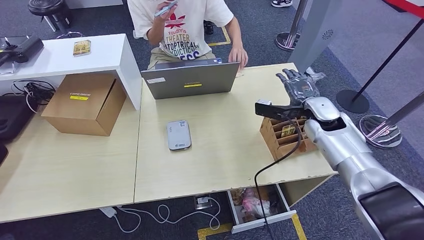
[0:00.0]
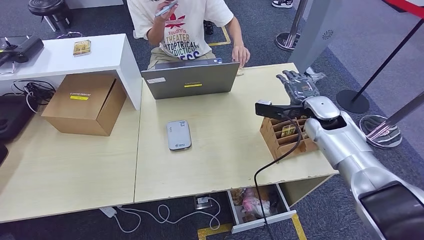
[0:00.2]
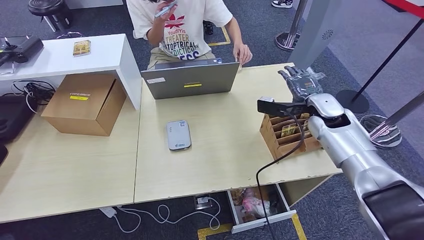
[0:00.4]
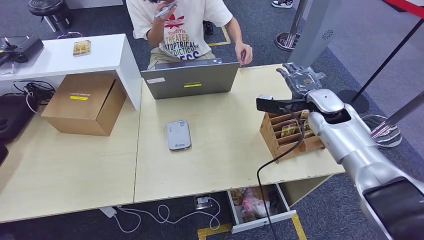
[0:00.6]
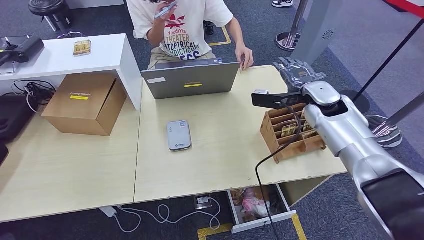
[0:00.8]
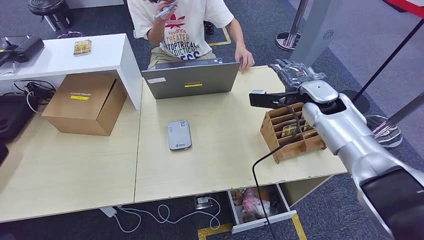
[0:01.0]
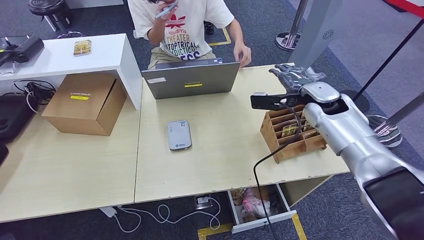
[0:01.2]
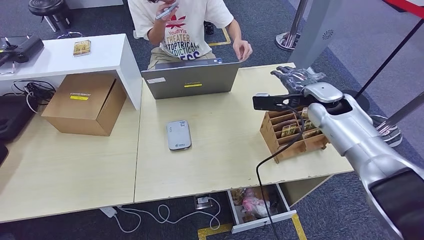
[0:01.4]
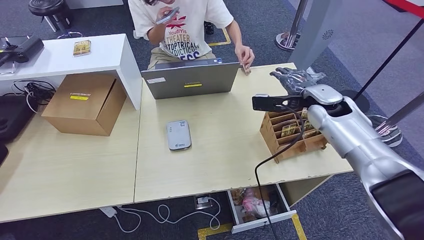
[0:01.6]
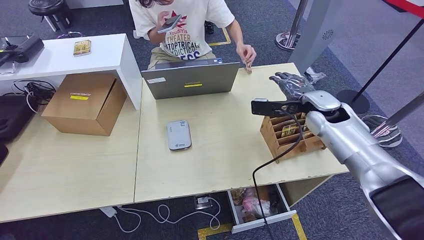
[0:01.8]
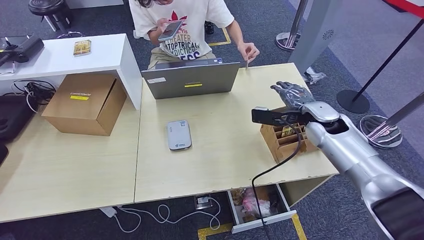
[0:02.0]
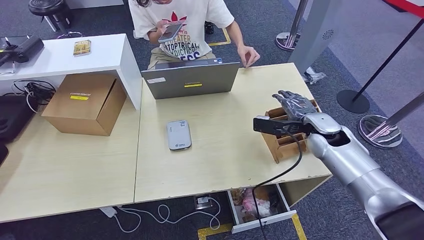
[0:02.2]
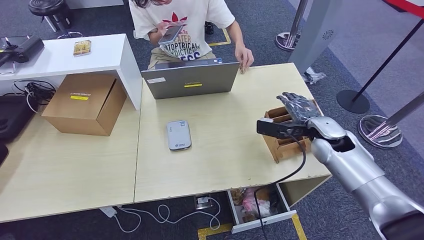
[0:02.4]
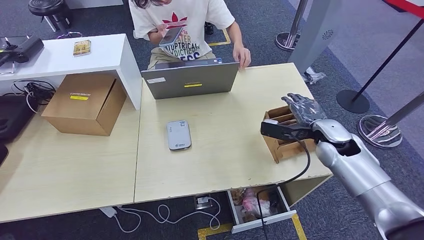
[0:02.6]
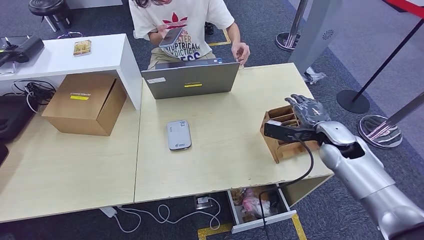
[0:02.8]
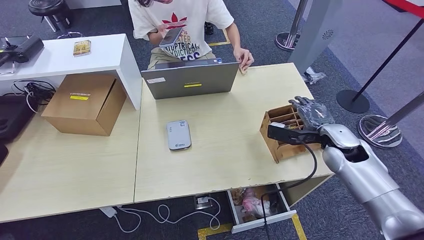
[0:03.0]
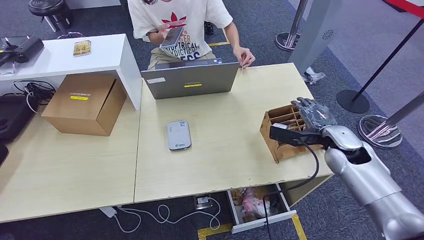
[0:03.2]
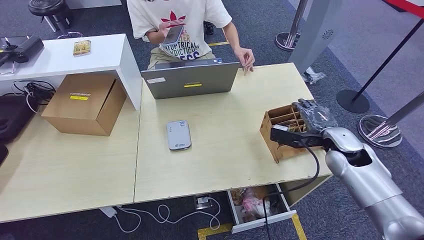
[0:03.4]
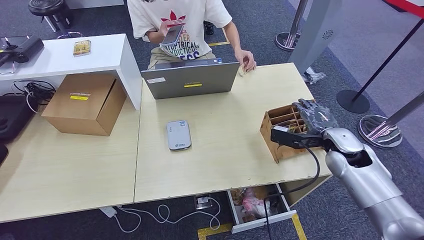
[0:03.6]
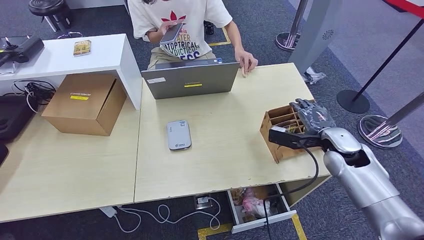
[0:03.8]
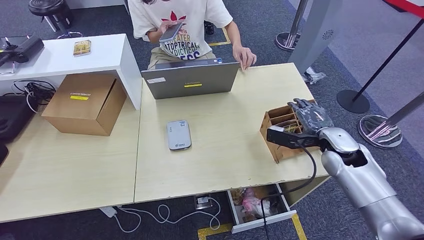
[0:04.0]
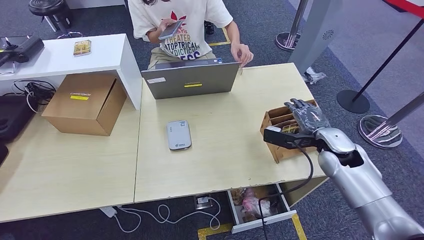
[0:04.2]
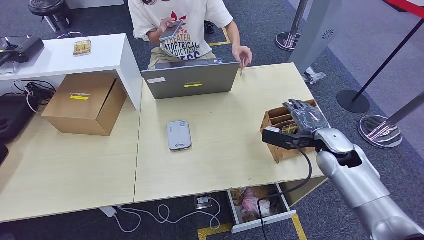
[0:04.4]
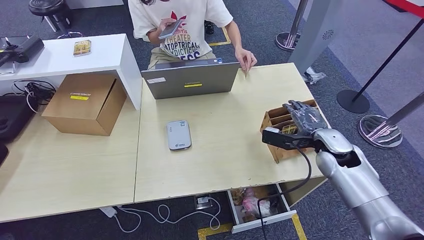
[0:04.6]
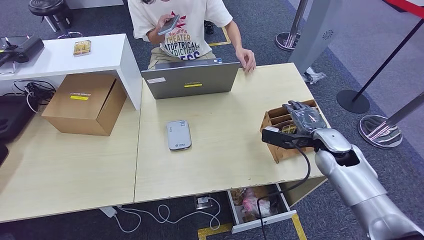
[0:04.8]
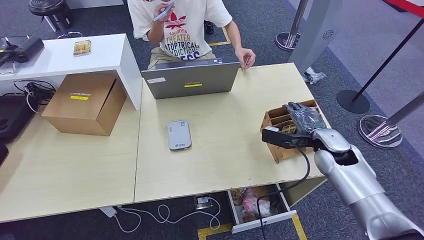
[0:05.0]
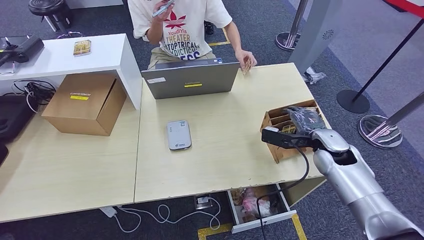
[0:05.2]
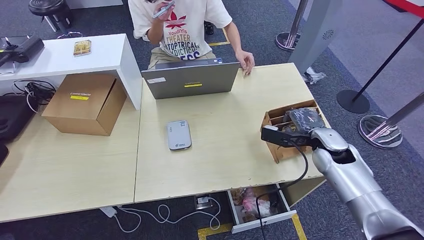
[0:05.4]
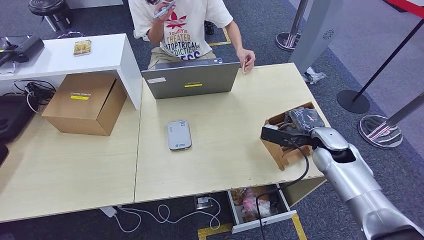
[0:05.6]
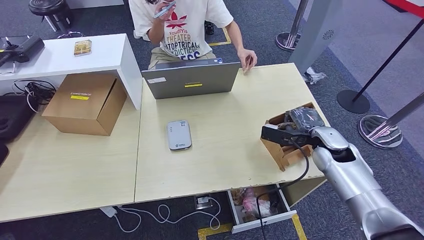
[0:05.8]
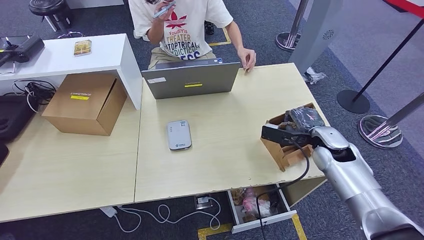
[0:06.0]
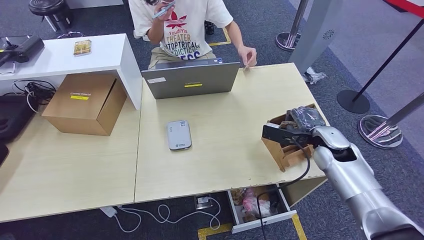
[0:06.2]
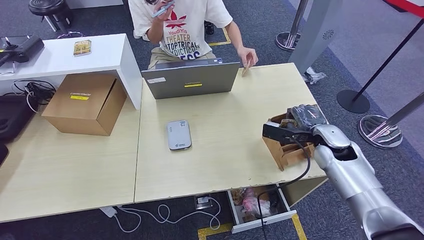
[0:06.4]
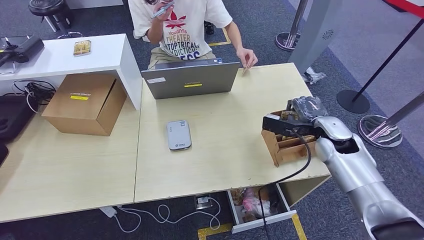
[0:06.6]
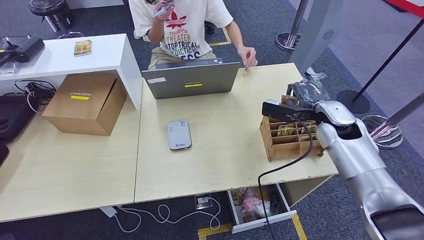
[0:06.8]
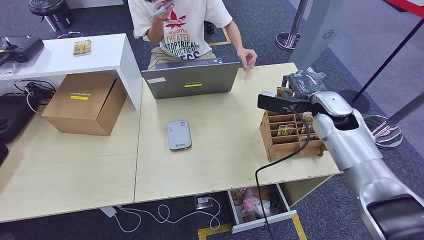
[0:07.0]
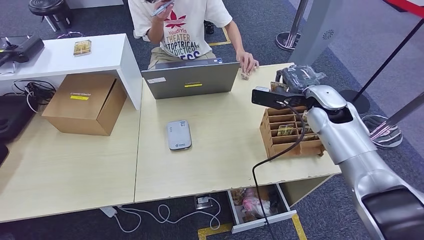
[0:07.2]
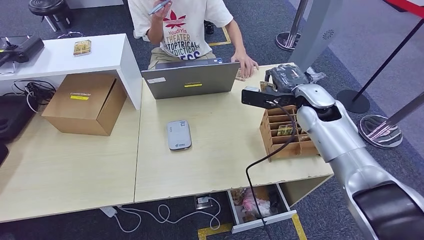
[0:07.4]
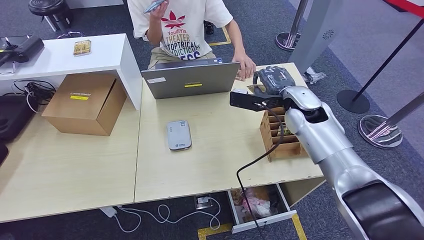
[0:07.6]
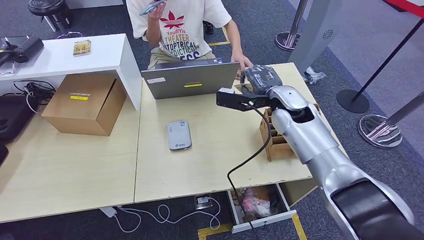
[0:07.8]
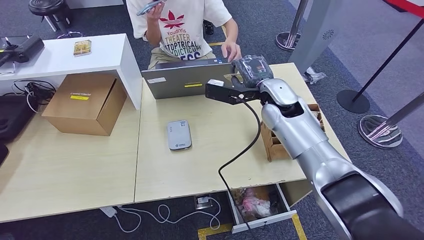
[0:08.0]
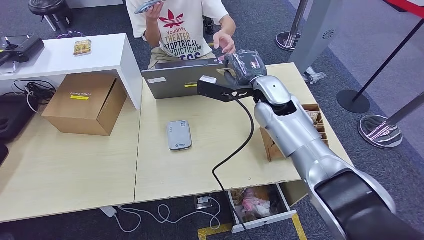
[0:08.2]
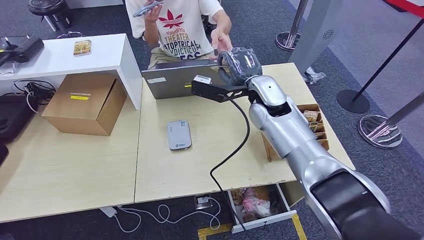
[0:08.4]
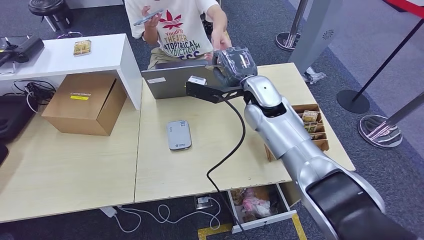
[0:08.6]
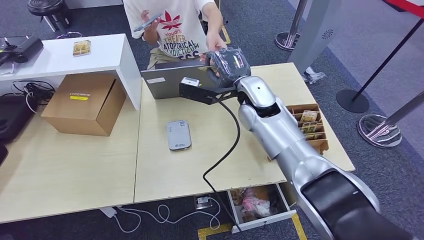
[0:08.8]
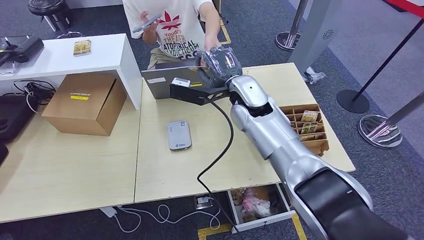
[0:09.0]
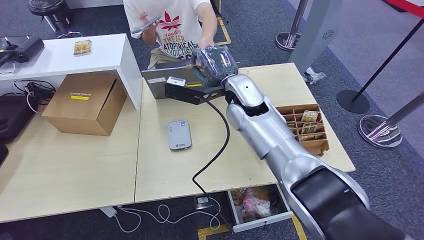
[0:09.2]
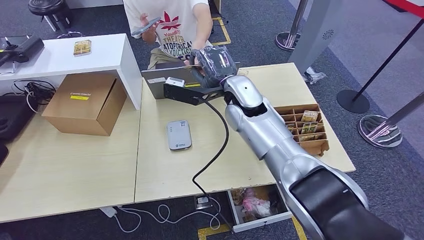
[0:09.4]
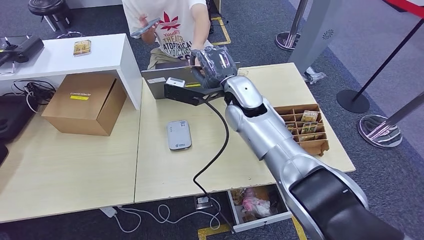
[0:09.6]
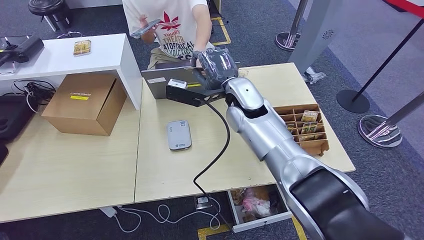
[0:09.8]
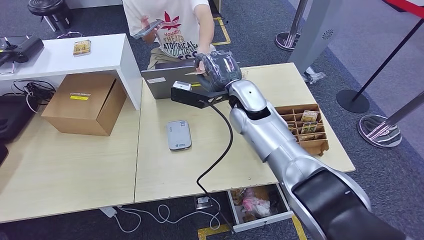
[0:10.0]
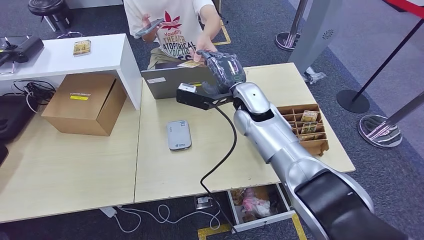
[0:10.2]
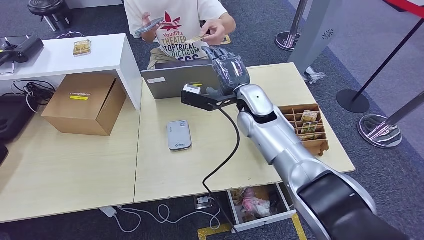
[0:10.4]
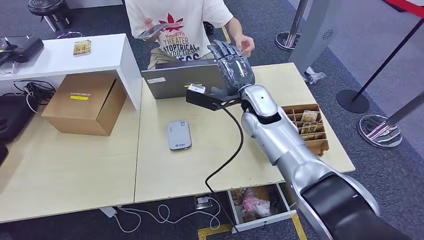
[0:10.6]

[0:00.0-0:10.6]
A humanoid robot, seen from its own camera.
Step, 0:00.0 to 0:07.2: Pick up the room key from the key card box.
Step, 0:07.4 to 0:10.4: Hand the room key to the person.
0:00.0 to 0:01.6: The right hand changes place by approximately 5 cm.
0:01.6 to 0:03.0: The right hand is displaced backward and downward by roughly 10 cm.
0:03.0 to 0:06.0: The hands stay close to where they were, moving slightly.
0:06.0 to 0:07.6: The right hand moves upward, to the left and forward, about 15 cm.
0:07.6 to 0:09.0: The right hand travels to the left by some 15 cm.
0:09.0 to 0:10.6: The hands make only small movements.

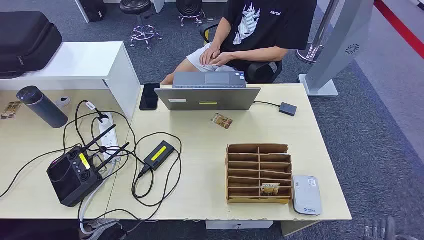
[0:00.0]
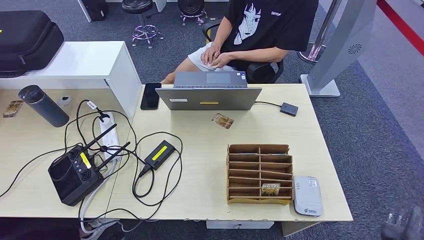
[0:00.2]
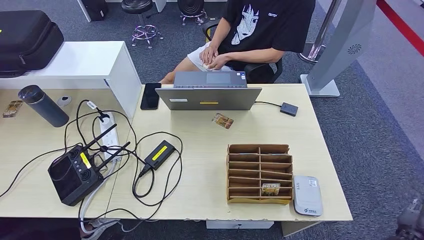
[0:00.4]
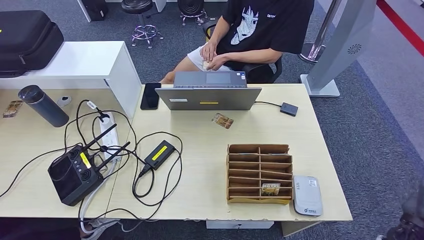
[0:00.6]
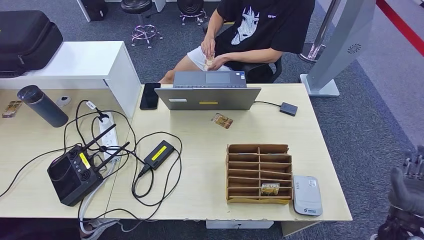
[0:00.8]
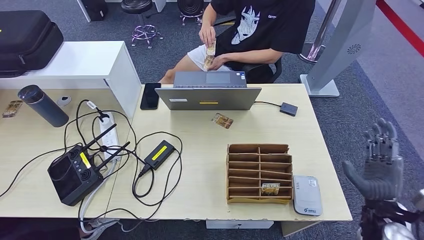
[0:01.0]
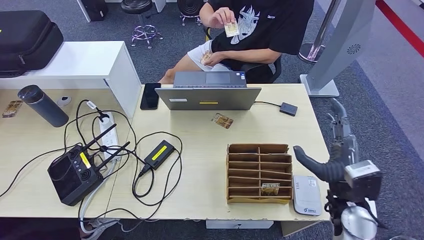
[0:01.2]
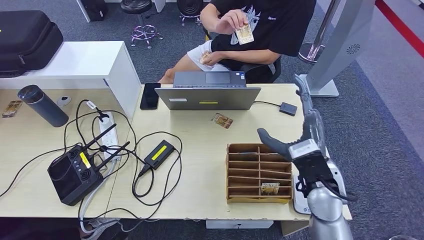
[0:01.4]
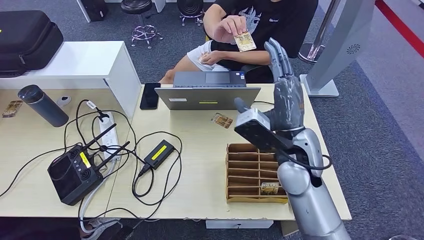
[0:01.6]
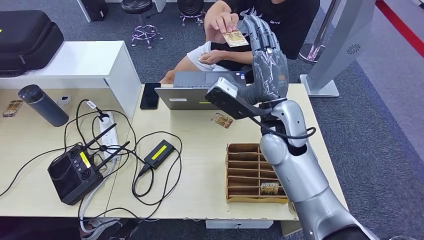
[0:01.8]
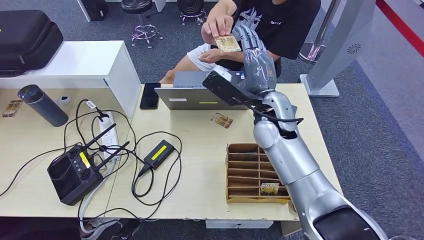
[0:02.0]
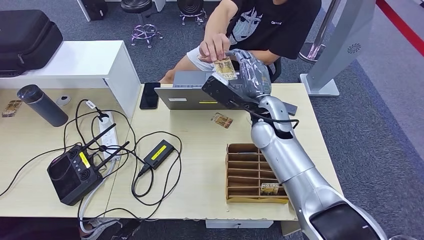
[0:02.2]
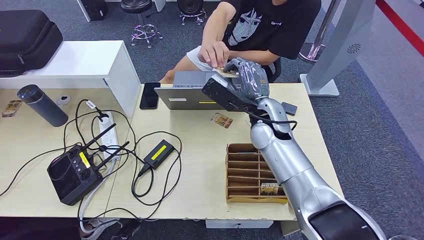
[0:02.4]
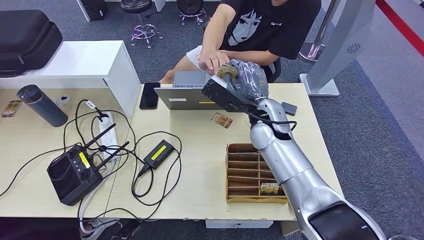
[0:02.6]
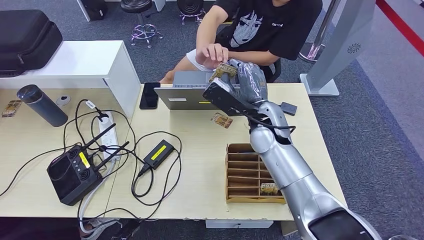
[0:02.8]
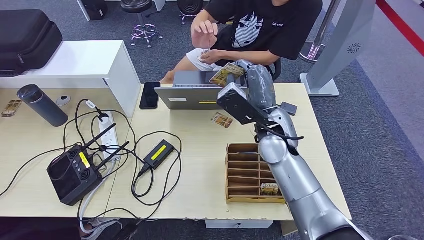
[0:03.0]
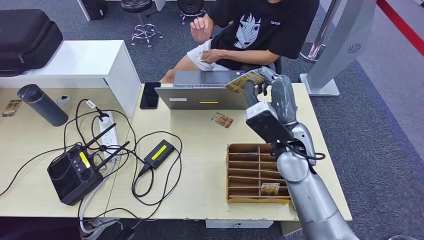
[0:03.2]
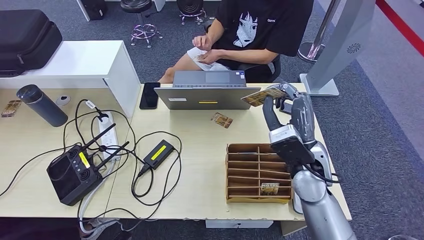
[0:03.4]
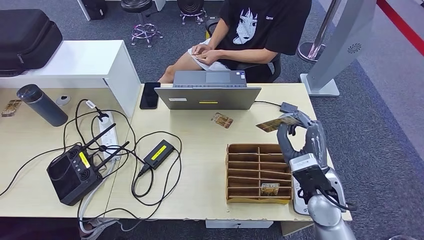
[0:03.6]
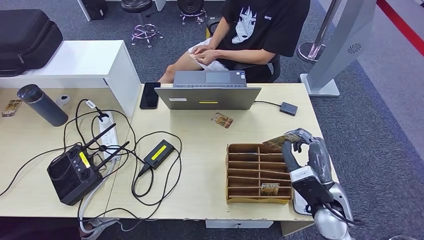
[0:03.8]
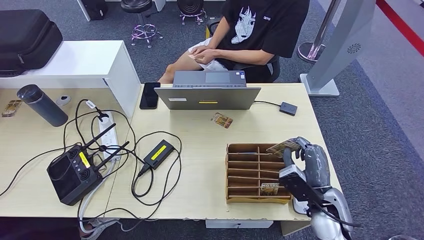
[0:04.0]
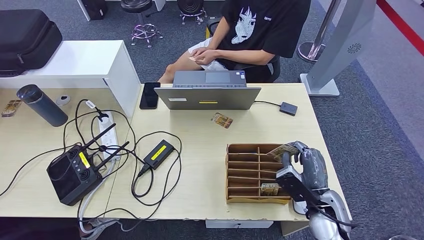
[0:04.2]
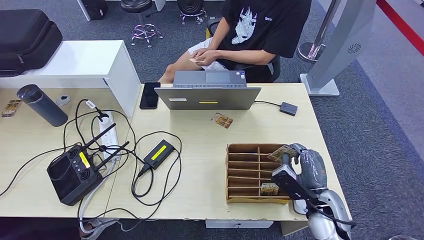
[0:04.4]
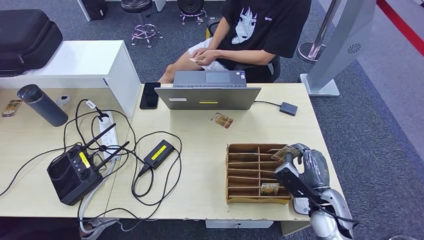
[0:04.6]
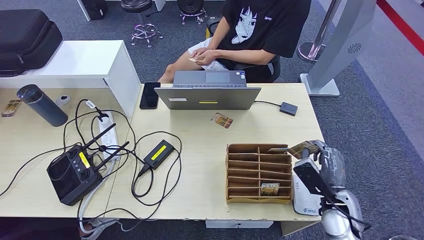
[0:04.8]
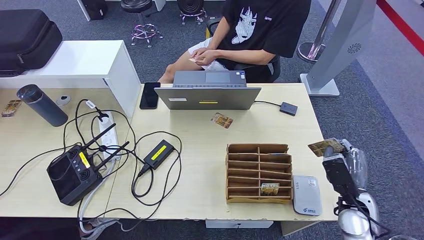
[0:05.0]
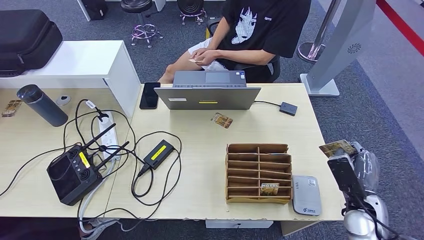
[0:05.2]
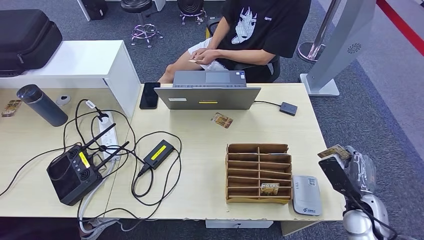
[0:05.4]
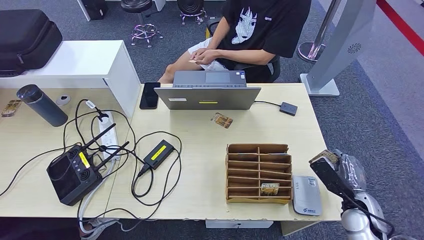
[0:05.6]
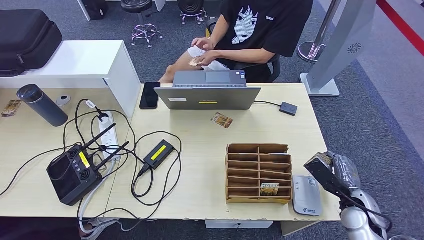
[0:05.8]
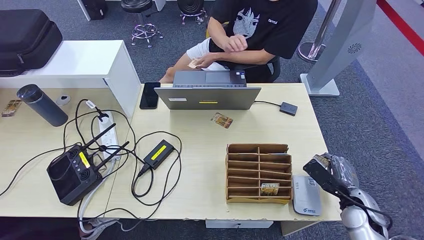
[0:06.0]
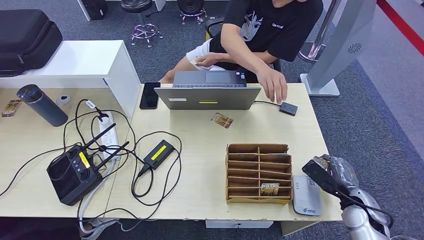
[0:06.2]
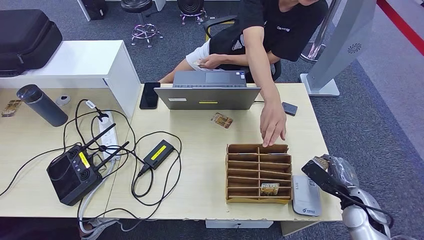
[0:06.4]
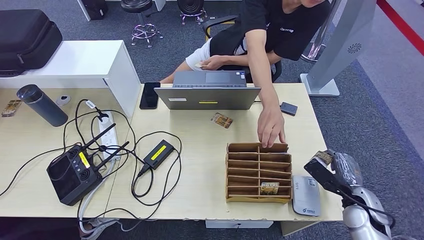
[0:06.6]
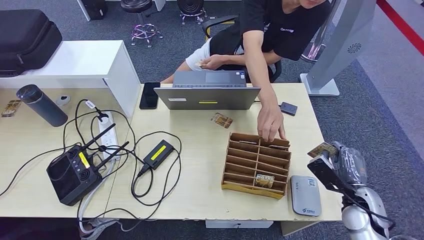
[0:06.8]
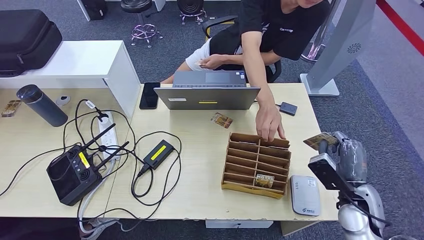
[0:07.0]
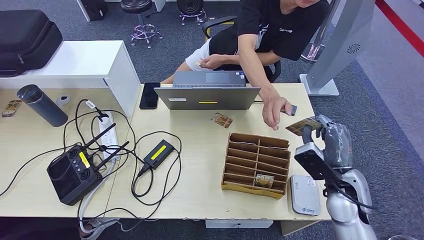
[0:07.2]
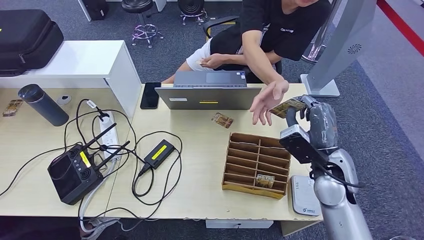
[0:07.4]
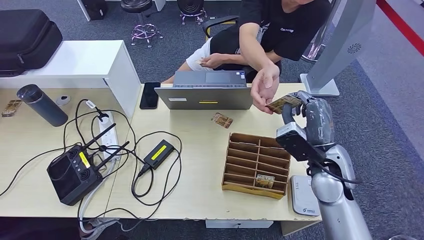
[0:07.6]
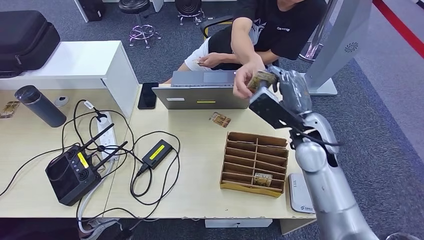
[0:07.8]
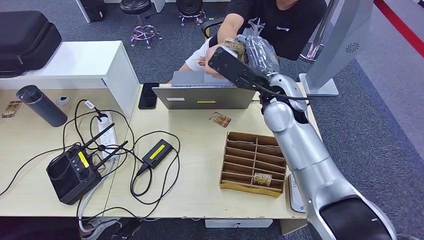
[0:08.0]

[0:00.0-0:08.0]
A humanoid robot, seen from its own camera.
Step, 0:00.0 to 0:03.2: Take the ID card from the person's hand.
Step, 0:03.4 to 0:06.6: Place the ID card on the card reader.
0:01.6 to 0:03.2: The right hand goes forward and returns, about 10 cm each way.
0:03.2 to 0:04.8: The right hand travels downward, to the right and backward by approximately 25 cm.
0:04.8 to 0:06.4: The right hand heads to the right, covering approximately 10 cm.
